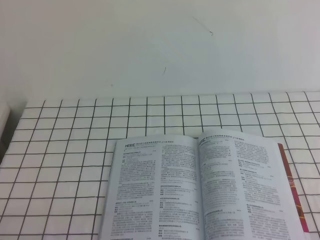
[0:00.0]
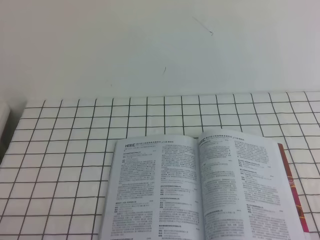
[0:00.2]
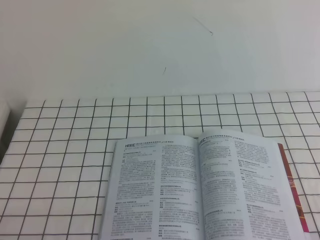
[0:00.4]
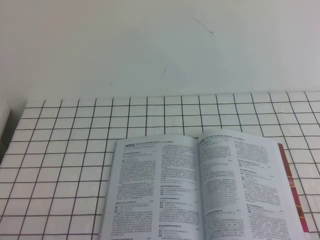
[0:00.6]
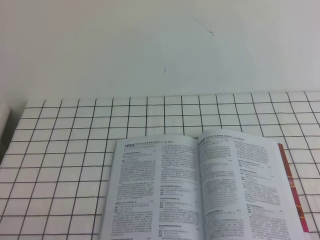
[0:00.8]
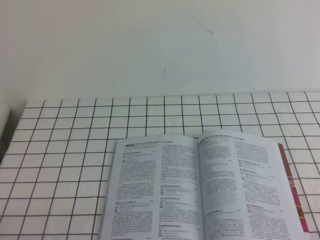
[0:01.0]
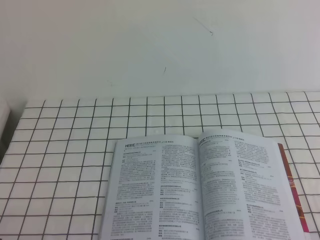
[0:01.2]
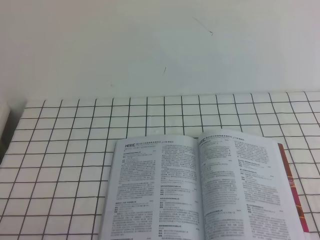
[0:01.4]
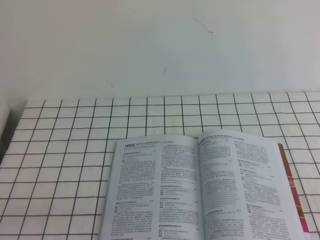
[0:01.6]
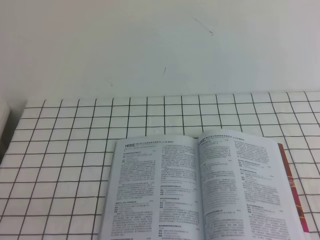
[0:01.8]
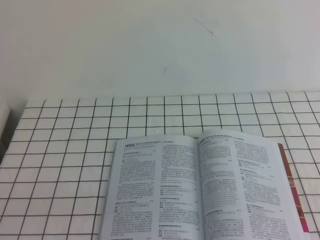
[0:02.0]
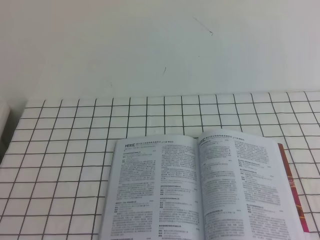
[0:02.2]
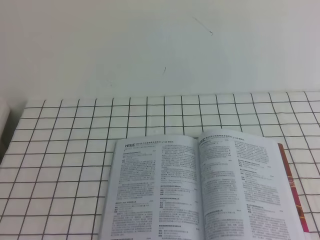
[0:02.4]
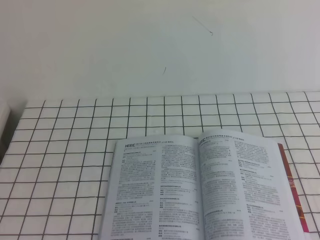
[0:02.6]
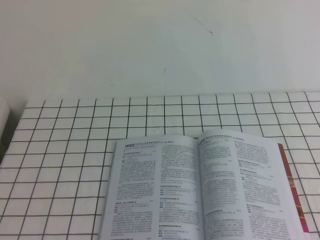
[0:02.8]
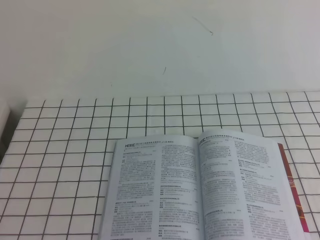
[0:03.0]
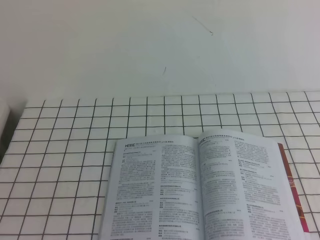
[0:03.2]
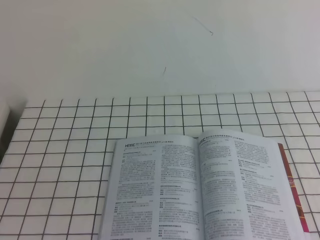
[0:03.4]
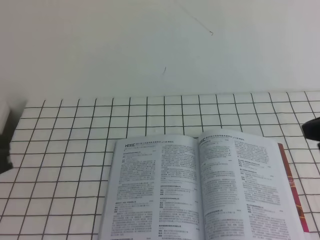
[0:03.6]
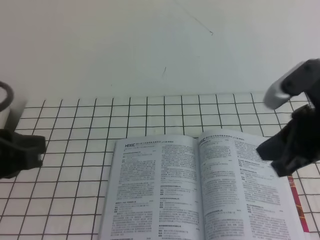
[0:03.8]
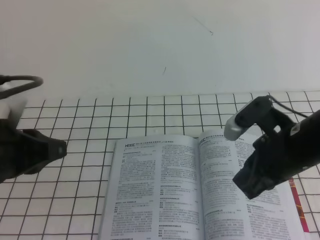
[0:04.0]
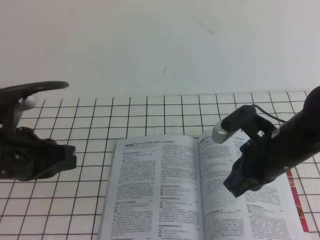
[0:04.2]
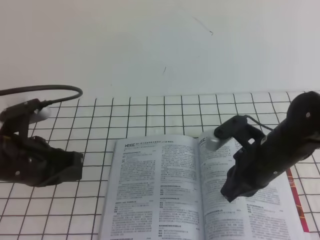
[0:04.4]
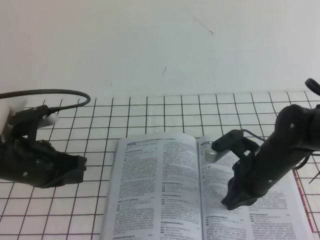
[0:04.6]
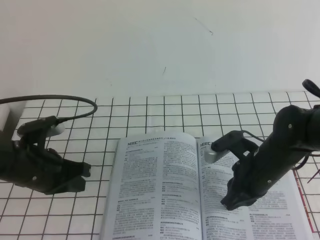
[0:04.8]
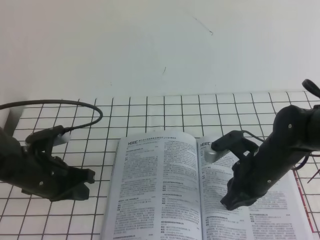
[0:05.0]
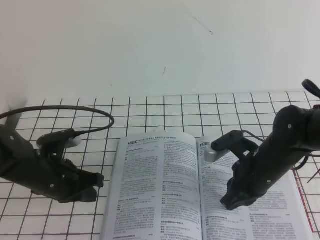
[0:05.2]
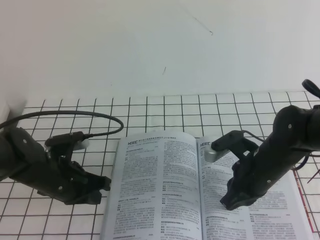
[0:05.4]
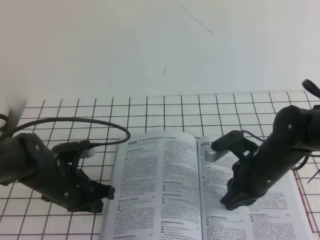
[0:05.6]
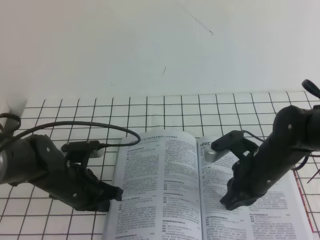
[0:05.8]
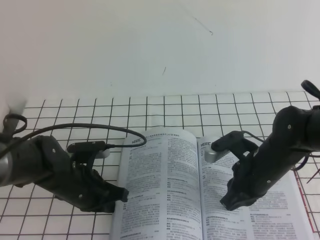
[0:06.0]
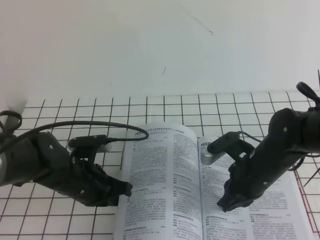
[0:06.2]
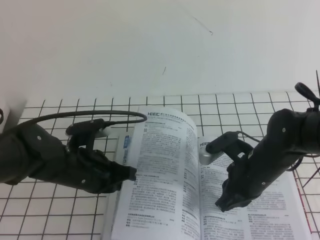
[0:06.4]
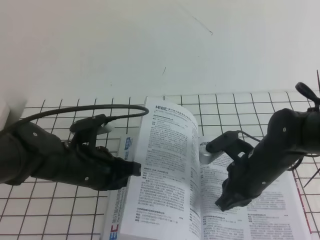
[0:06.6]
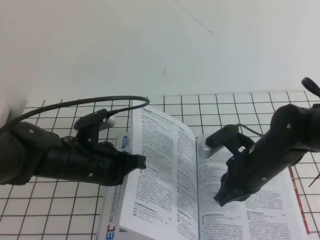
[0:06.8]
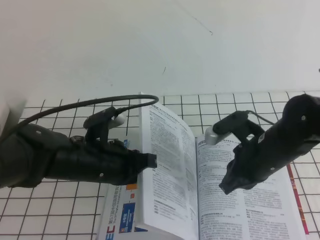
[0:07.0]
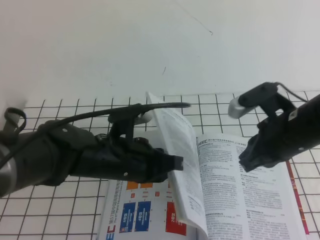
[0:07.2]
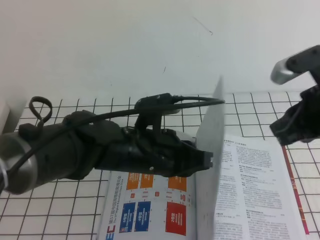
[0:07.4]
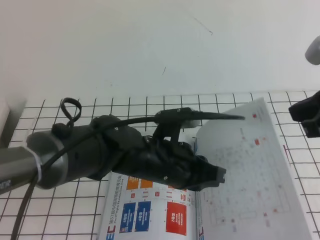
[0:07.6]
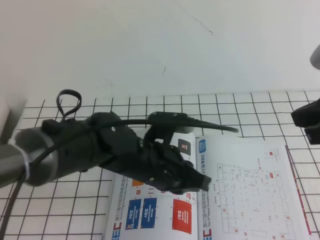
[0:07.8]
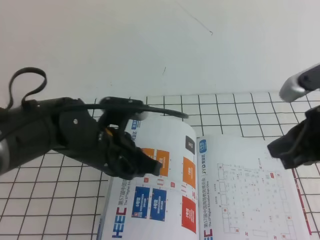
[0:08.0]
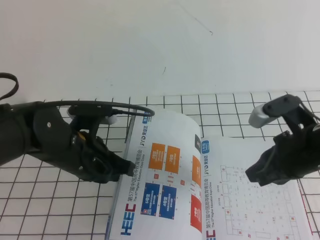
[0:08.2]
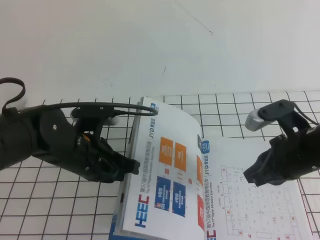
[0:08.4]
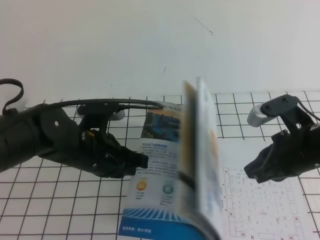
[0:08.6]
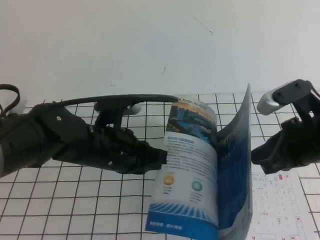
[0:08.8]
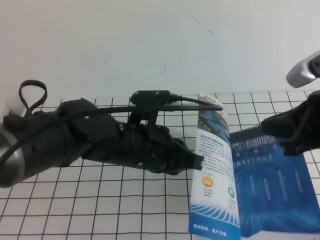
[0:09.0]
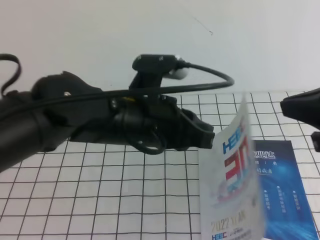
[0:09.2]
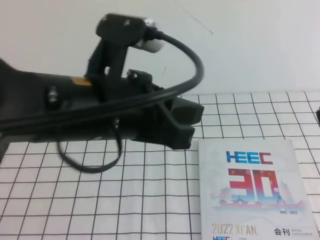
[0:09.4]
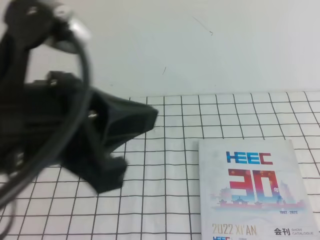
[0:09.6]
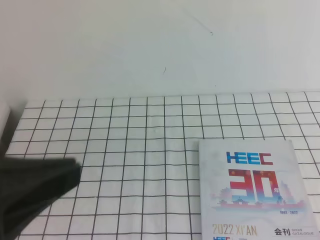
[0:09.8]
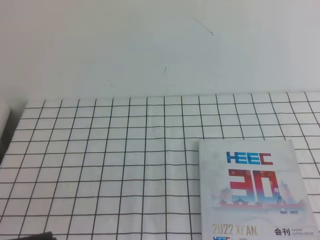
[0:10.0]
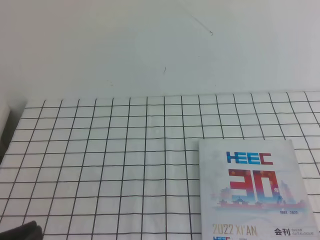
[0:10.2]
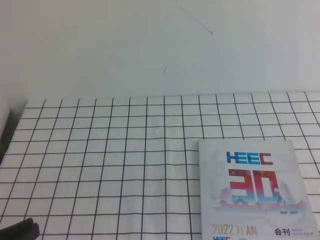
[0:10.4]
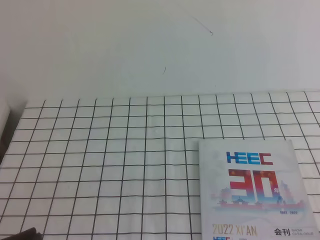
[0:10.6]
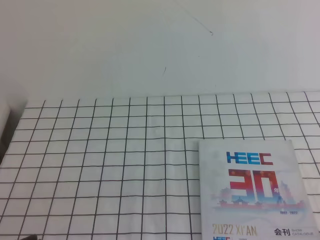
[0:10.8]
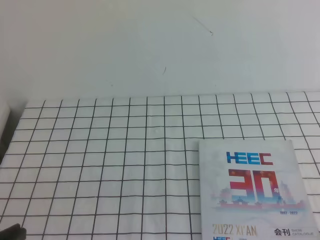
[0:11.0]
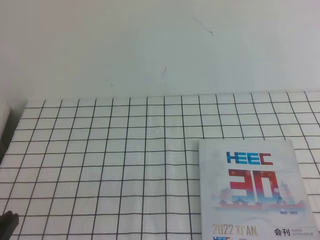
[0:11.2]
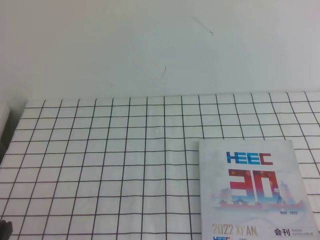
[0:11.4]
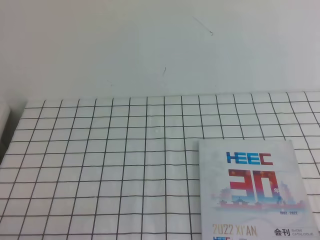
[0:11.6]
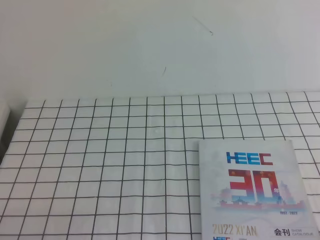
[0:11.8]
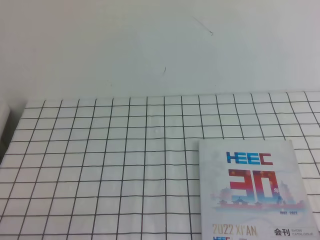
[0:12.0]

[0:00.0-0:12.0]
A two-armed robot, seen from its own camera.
Task of the whole recording: on the white tablecloth, hold the book with one hand and close it with the other.
0:03.0 to 0:04.4: The right gripper heads downward, forward and to the left, covering some 35 cm, while the left gripper shifts roughly 25 cm forward and downward.
0:04.4 to 0:06.0: The left gripper heads downward and to the right, covering some 15 cm.
0:06.0 to 0:07.6: The left gripper shifts about 15 cm to the right and upward. The right gripper shifts about 20 cm upward.
0:07.6 to 0:09.0: The right gripper travels downward and back again, some 10 cm each way.
0:09.0 to 0:10.4: The right gripper moves backward and to the right, about 25 cm, while the left gripper is displaced backward and to the left by approximately 30 cm.
0:10.4 to 0:12.0: The left gripper shifts about 10 cm downward.
